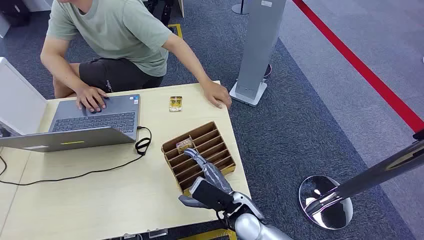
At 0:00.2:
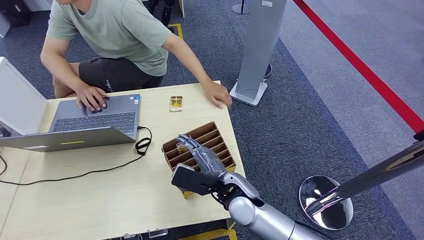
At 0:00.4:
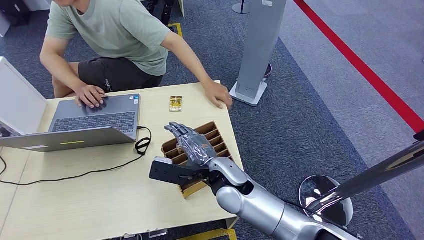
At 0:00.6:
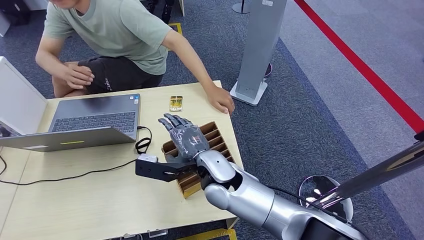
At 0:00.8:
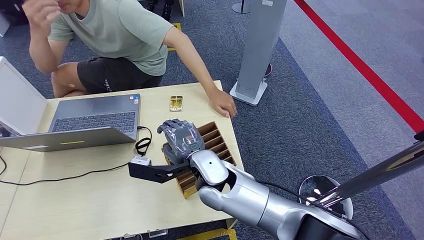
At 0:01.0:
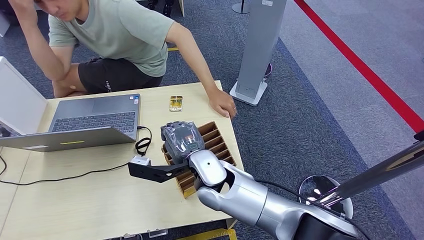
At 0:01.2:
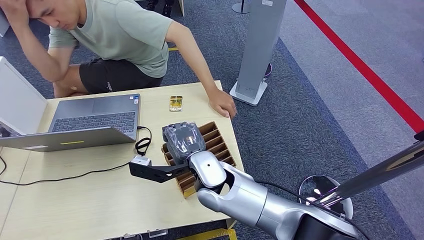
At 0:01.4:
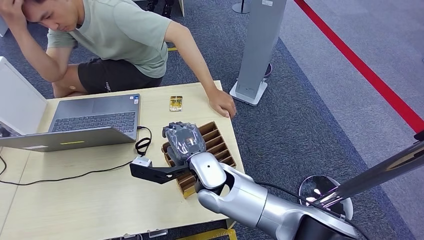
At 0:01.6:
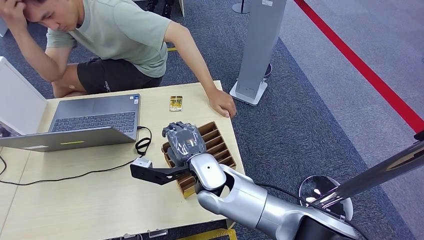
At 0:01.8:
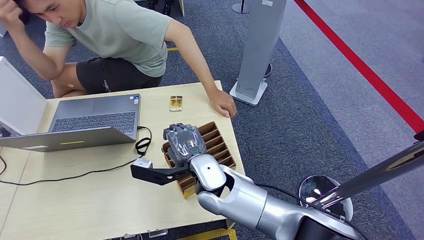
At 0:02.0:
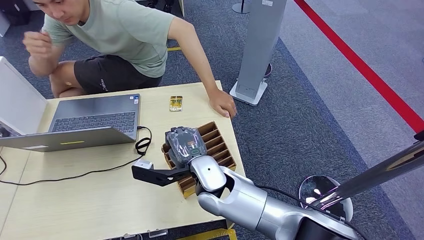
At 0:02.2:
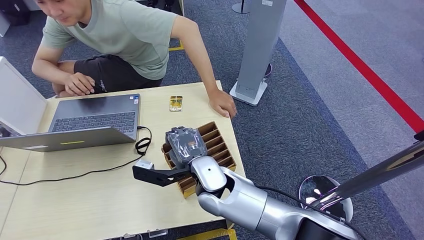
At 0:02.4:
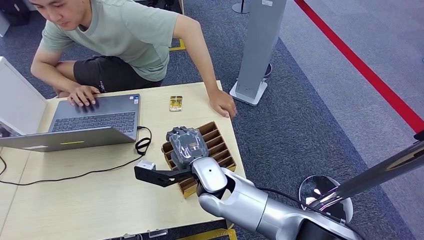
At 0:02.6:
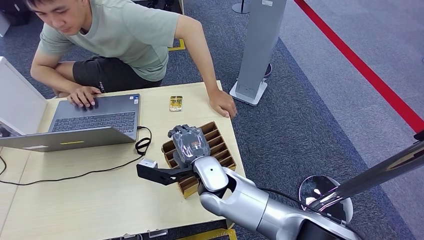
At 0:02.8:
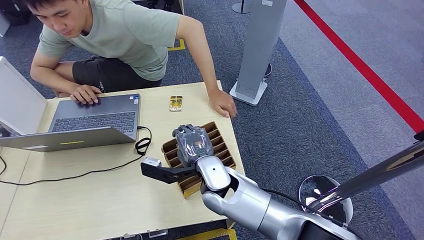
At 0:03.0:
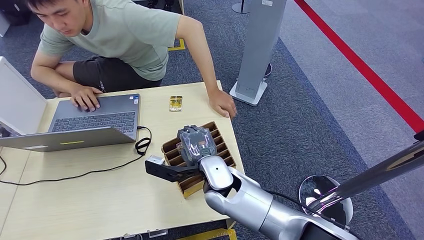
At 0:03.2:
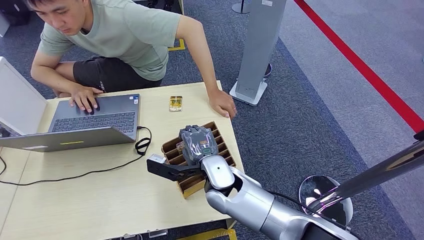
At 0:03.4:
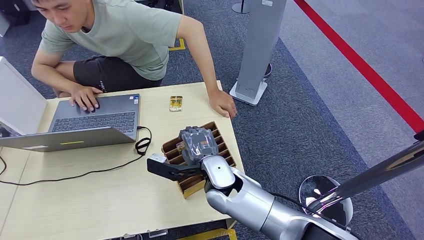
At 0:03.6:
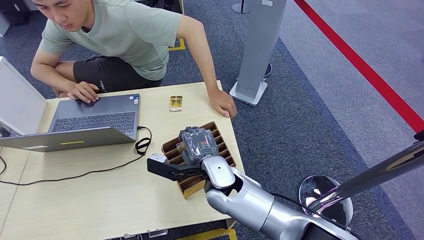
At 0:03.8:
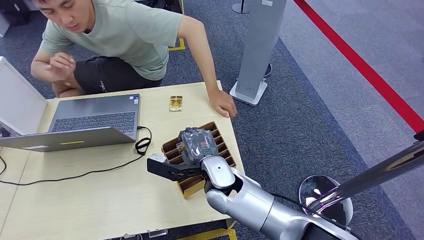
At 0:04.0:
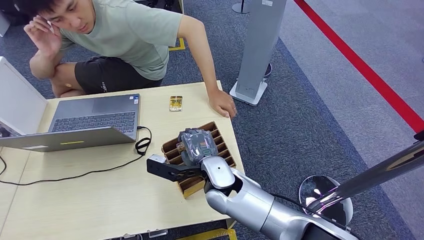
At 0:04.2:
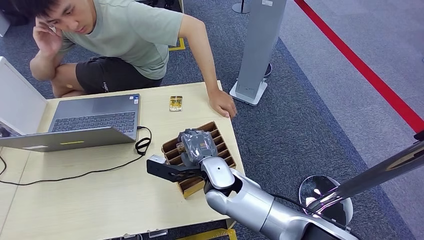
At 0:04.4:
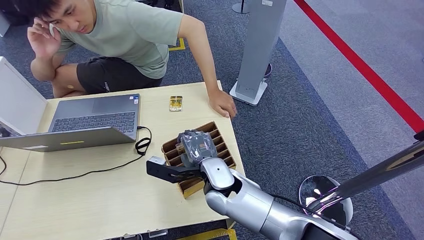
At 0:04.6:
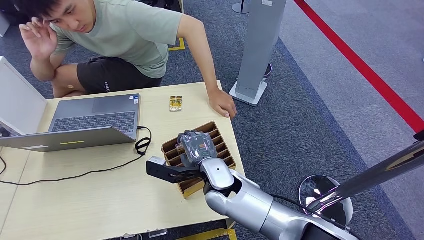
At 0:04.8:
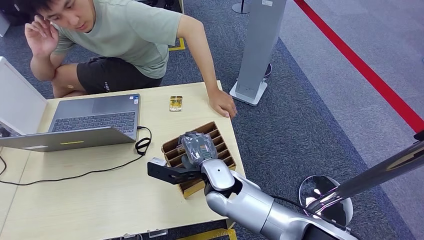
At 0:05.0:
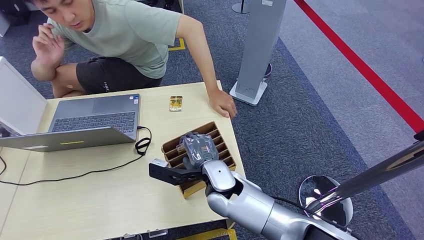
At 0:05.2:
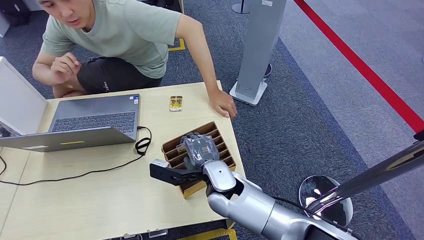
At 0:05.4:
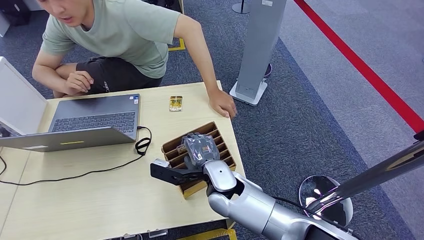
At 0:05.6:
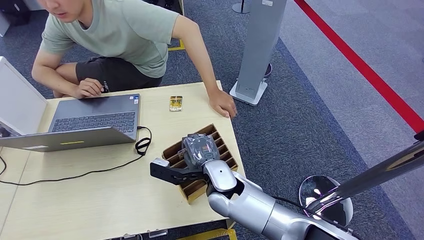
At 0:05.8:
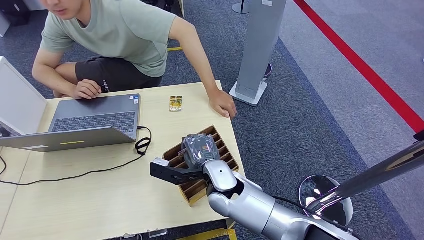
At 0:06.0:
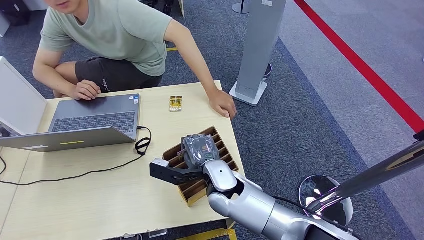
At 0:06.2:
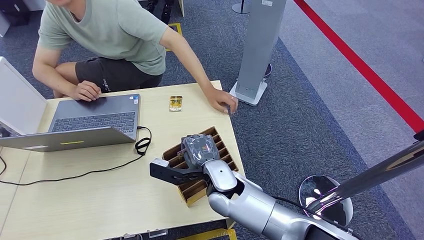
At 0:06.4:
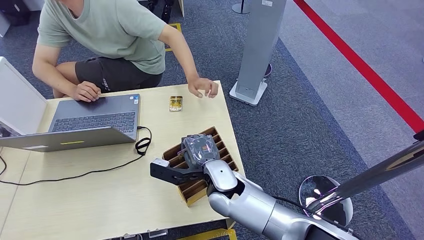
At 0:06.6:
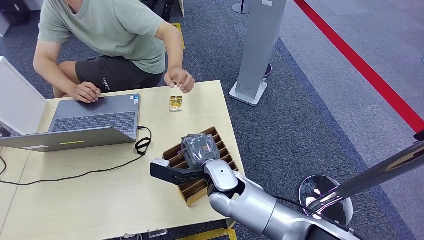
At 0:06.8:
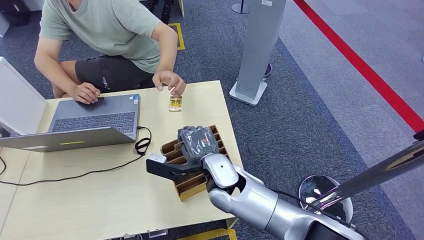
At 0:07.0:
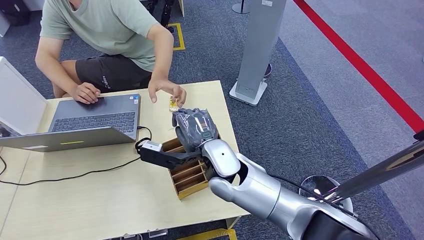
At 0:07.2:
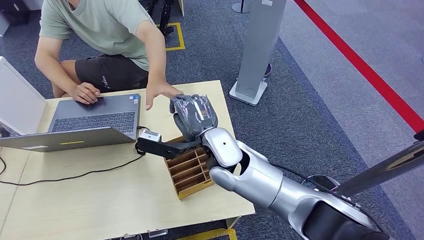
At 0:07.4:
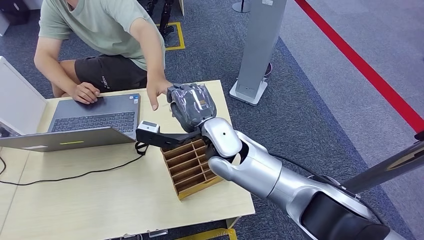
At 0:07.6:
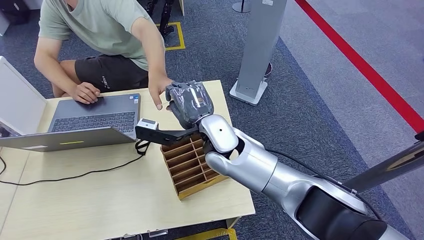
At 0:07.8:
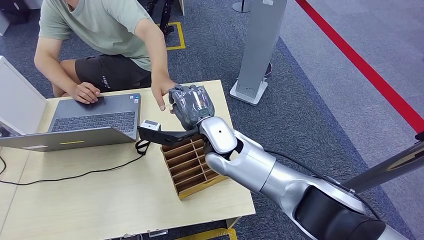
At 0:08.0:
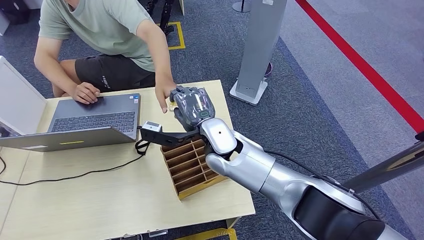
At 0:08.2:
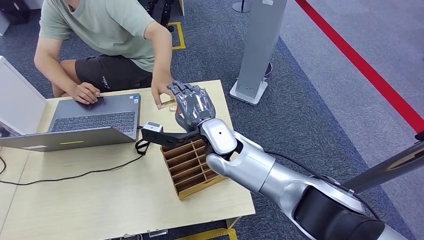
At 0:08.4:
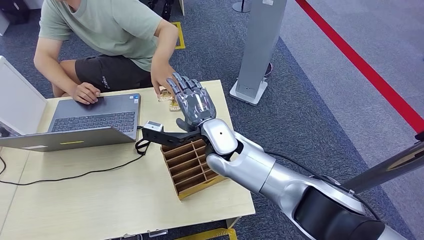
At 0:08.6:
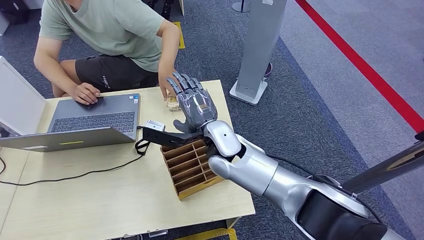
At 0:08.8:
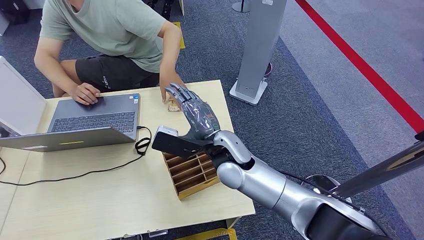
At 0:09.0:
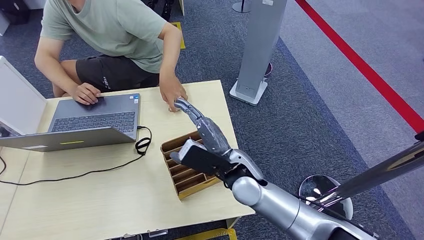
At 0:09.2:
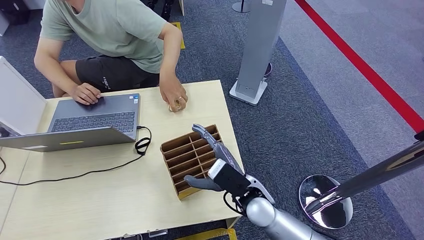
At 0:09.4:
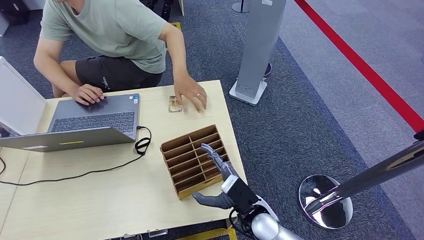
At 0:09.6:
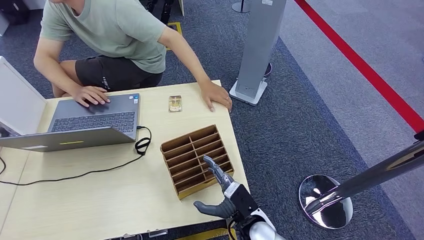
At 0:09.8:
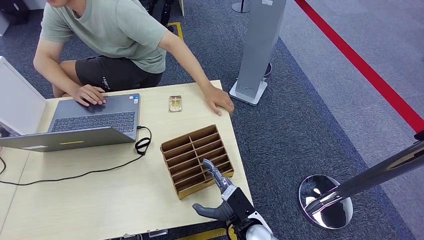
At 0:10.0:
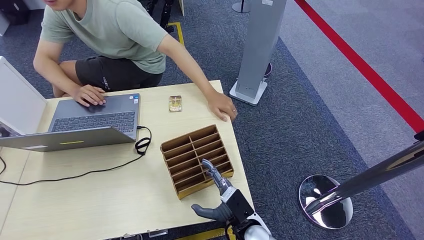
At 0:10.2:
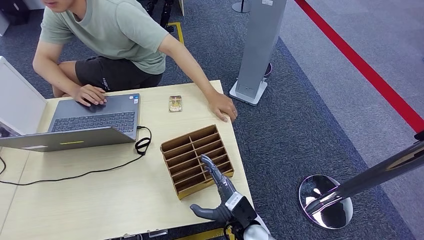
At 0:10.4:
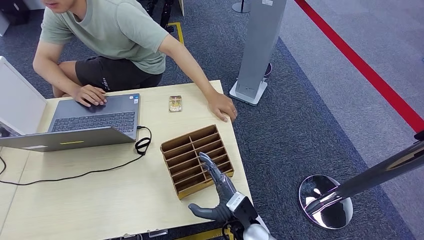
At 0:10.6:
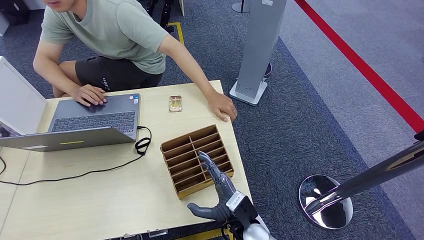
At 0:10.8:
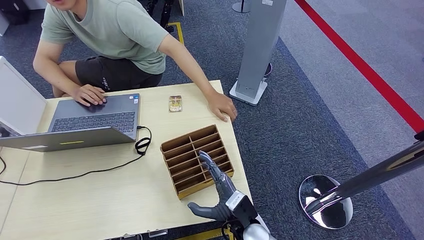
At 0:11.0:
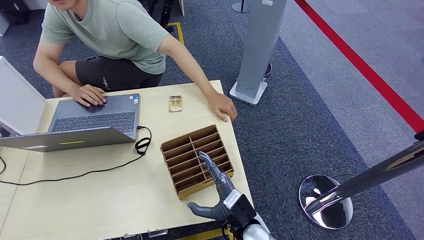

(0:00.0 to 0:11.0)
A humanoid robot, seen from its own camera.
Step, 0:00.0 - 0:06.8: Pick up the key card from the card box.
Step, 0:07.0 - 0:10.8: Hand the key card to the target.
0:01.6 - 0:04.8: The hands stay close to where they were, moving slightly.
0:04.8 - 0:06.2: Both hands stay about where they are.
0:07.8 - 0:09.4: The right hand moves downward, backward and to the right, roughly 25 cm.
